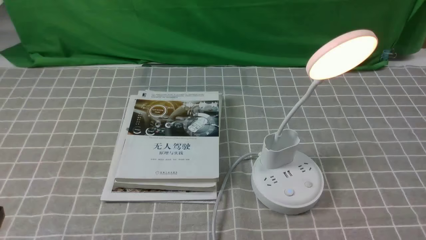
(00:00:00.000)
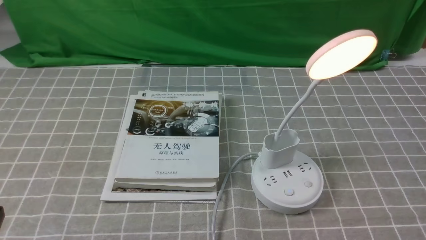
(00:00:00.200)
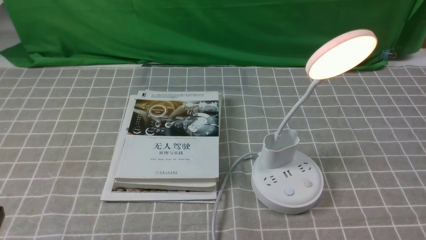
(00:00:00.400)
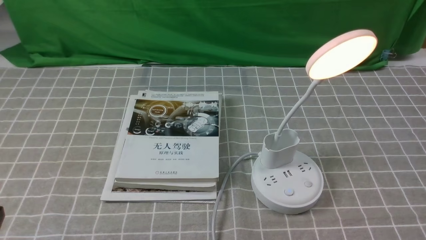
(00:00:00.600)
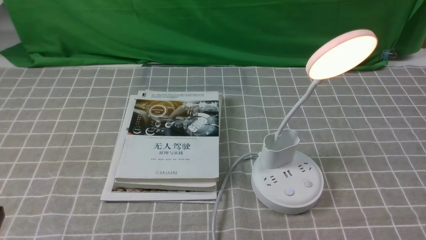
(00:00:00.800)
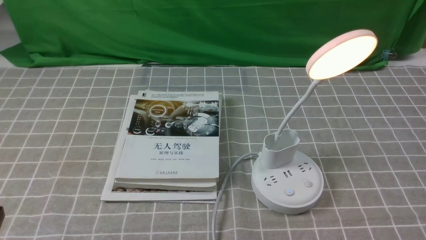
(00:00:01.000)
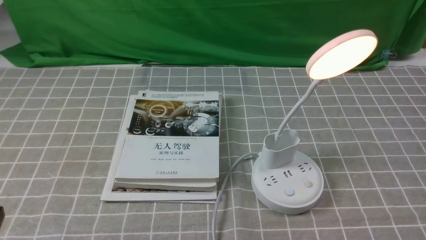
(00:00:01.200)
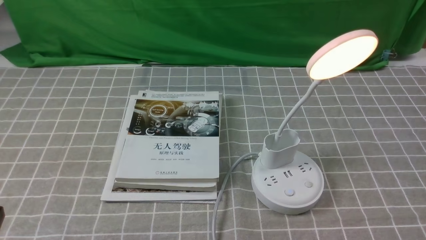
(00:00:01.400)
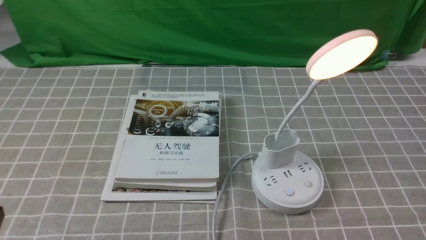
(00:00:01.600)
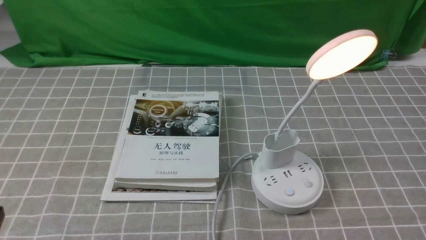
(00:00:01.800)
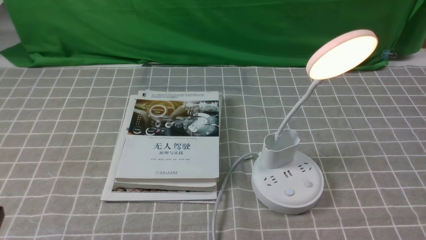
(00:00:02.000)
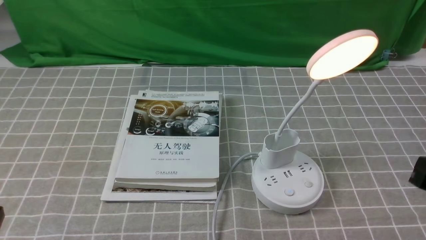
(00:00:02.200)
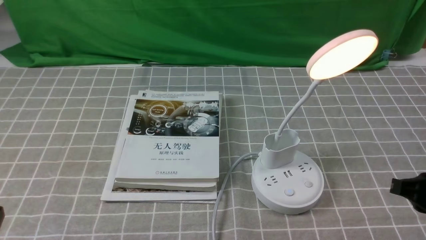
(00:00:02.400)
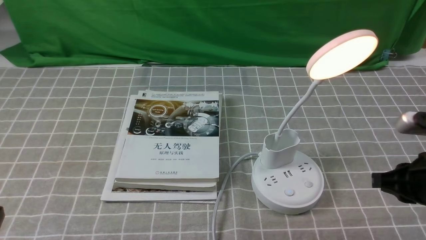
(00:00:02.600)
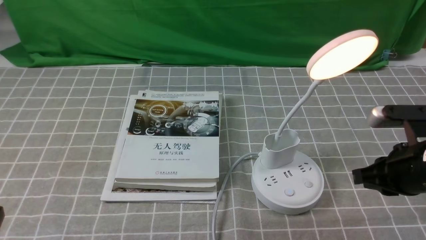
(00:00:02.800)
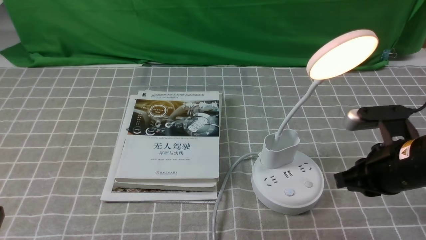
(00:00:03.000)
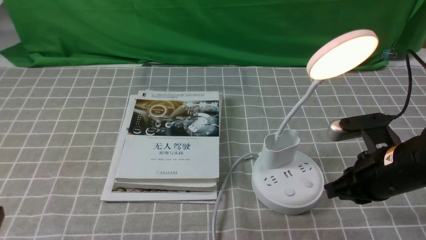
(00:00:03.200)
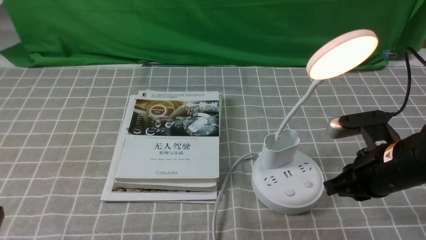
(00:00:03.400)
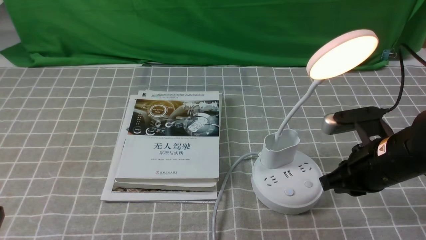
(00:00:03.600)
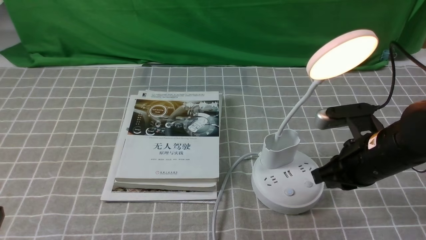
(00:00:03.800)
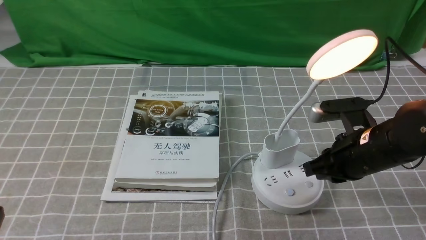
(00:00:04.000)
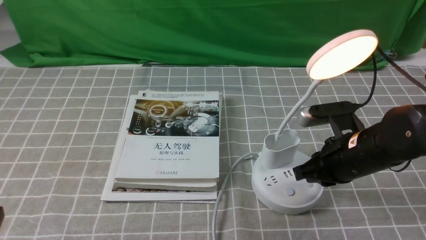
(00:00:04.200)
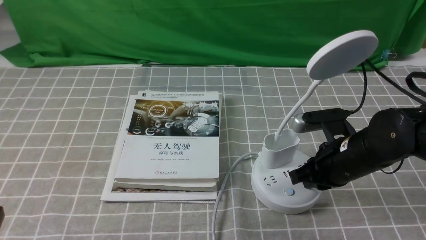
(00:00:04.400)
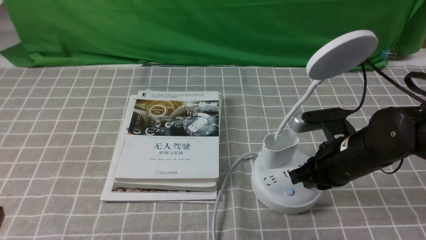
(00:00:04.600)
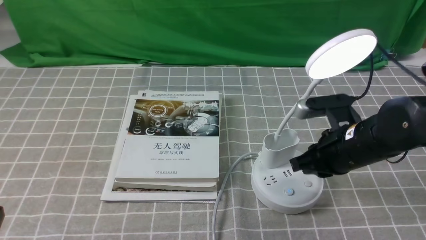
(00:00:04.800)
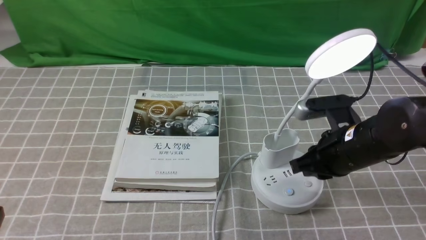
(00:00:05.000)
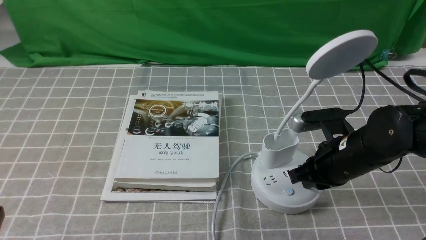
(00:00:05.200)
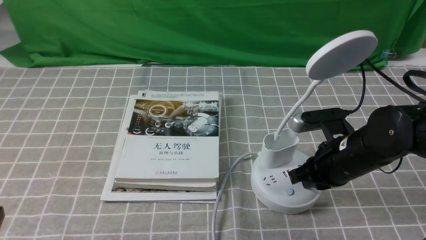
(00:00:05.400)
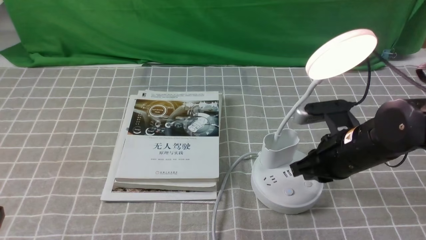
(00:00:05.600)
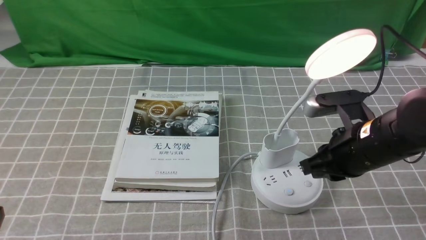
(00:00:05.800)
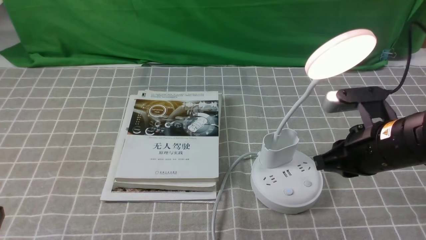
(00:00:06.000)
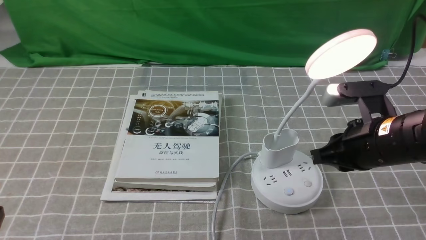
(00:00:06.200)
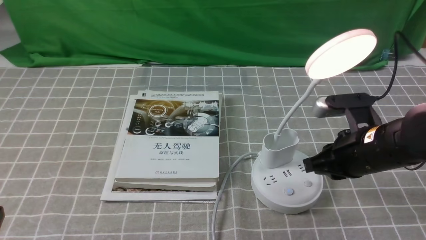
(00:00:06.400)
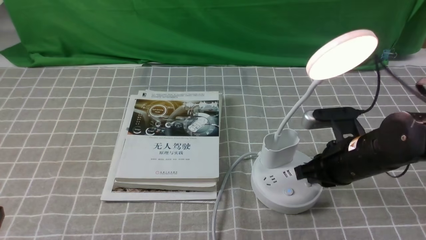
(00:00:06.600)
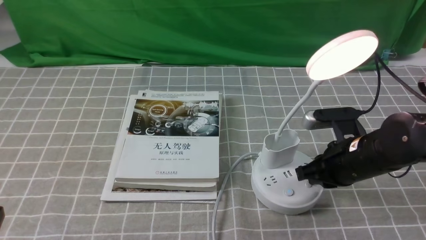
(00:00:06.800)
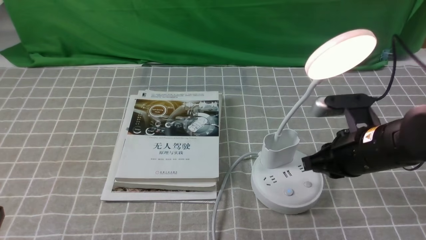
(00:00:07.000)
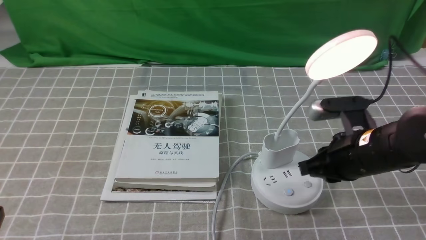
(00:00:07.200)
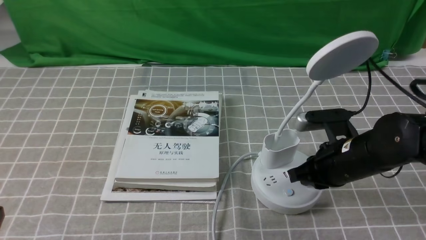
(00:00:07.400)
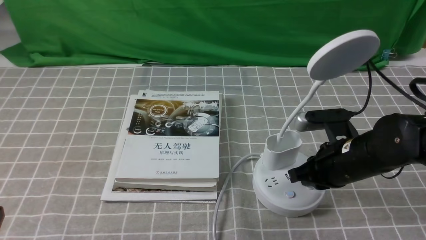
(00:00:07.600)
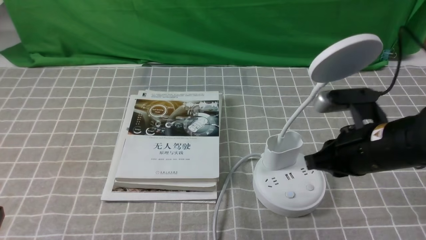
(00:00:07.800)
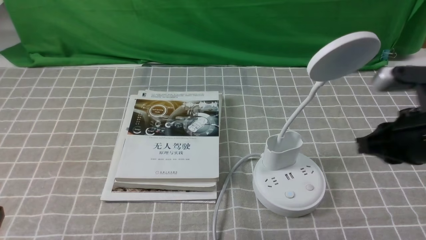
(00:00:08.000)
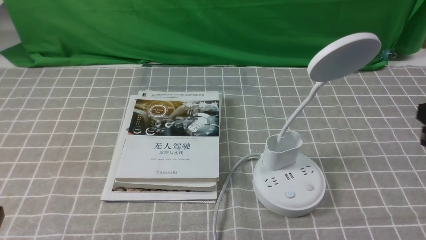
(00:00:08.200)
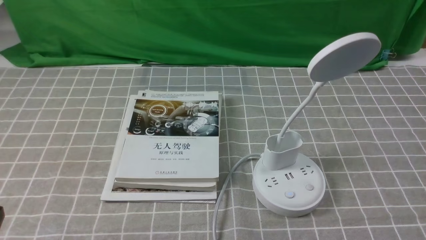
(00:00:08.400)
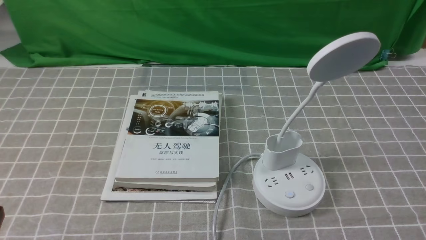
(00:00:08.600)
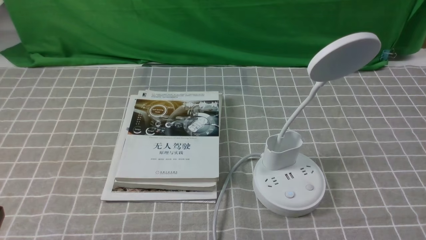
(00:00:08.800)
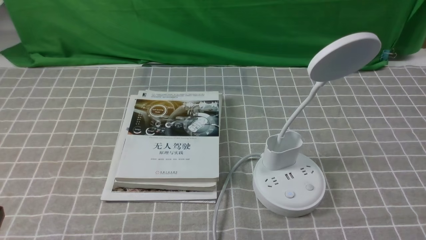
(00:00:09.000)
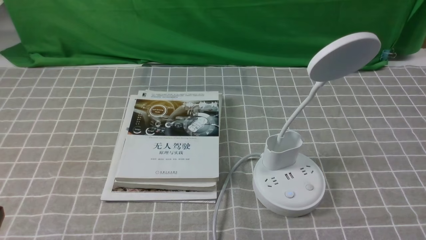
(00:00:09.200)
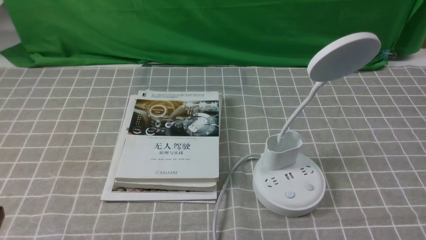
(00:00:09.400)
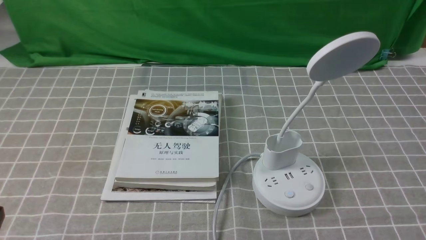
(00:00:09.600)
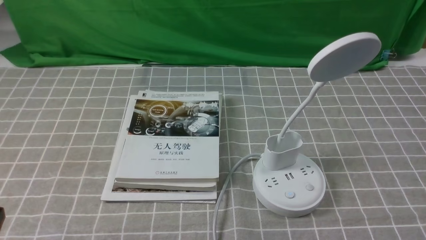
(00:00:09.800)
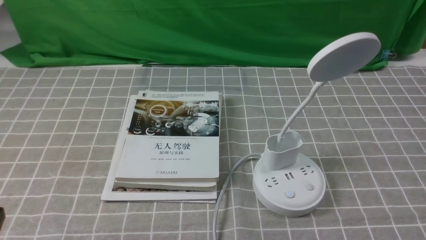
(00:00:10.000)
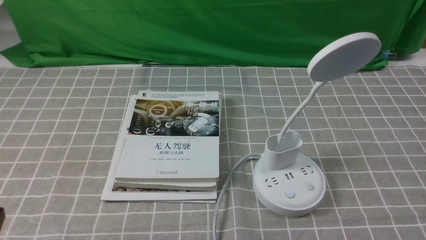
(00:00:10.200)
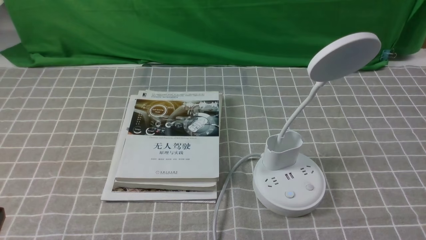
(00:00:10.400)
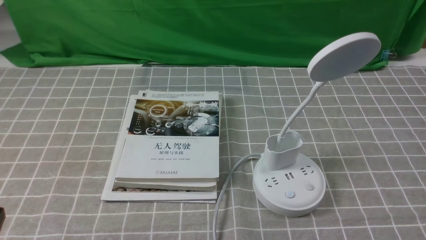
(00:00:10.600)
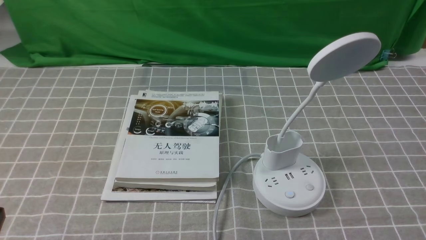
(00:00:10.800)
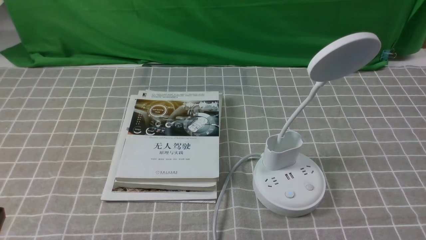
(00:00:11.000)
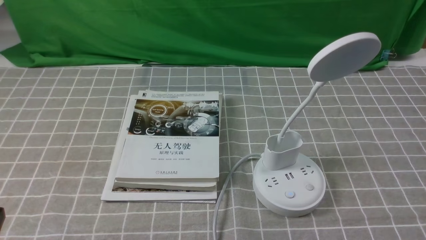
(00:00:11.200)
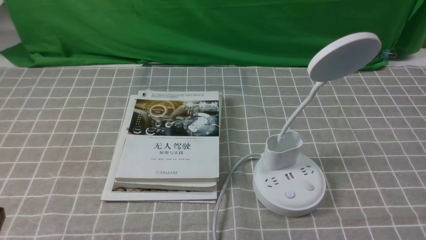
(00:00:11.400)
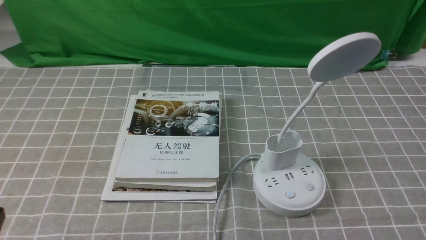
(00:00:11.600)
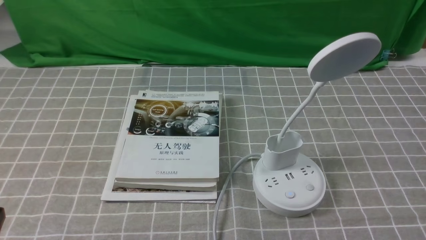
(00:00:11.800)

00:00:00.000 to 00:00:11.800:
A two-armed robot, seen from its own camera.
Task of the whole recording: turn off the desk lamp on the grey coffee tablecloth by hand.
Step, 00:00:00.000 to 00:00:07.600: use the right arm to press the button switch on the lamp holder.
00:00:01.400 to 00:00:03.000: The right gripper heads forward and to the left, covering about 20 cm.
00:00:03.000 to 00:00:04.400: The right gripper is displaced to the left by some 5 cm.
00:00:04.400 to 00:00:06.000: The right gripper heads upward, covering some 5 cm.
00:00:06.000 to 00:00:07.400: The right gripper moves downward, about 5 cm, and closes its fingers.
00:00:07.400 to 00:00:08.800: The right gripper goes about 20 cm backward and to the right.
00:00:10.400 to 00:00:11.800: The two grippers keep their place.
